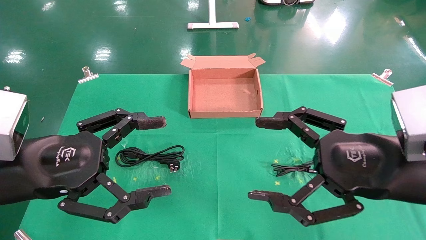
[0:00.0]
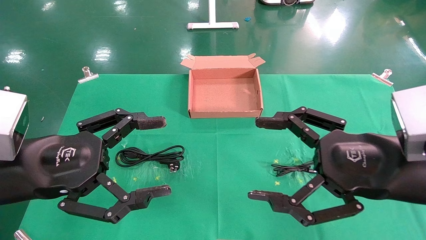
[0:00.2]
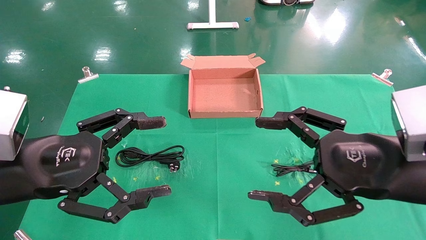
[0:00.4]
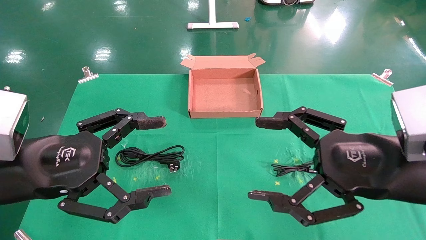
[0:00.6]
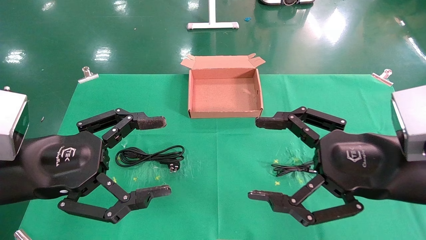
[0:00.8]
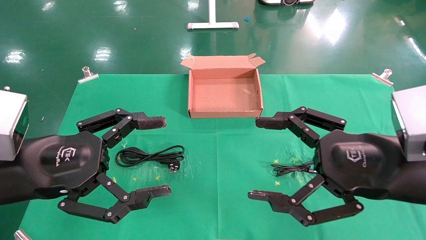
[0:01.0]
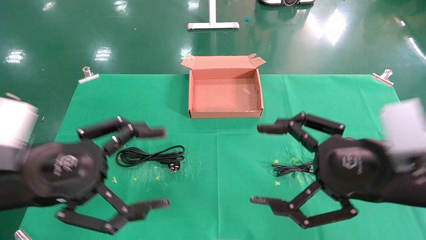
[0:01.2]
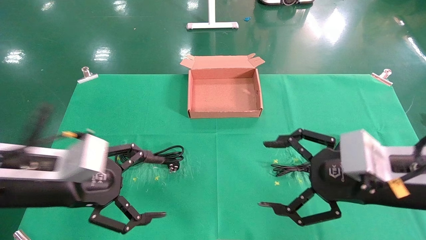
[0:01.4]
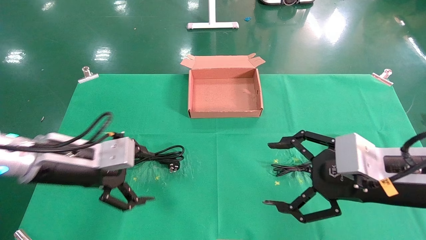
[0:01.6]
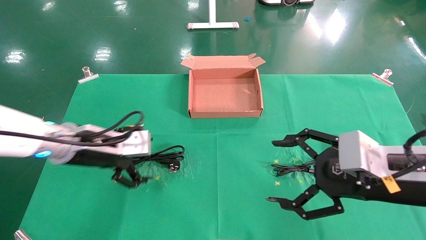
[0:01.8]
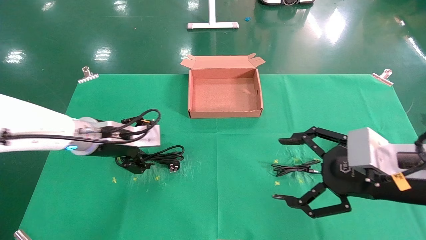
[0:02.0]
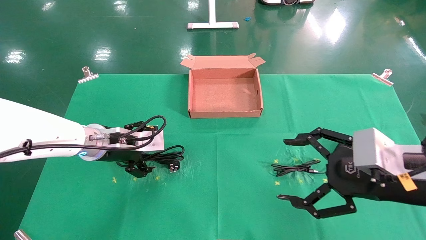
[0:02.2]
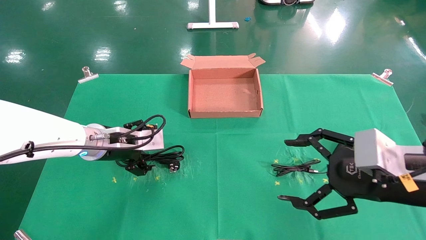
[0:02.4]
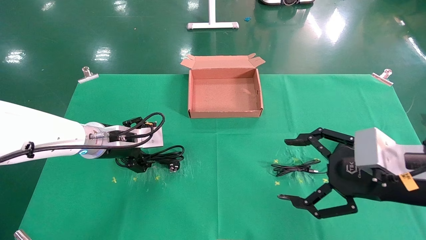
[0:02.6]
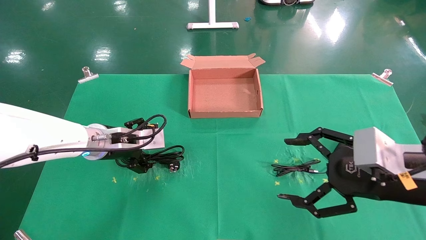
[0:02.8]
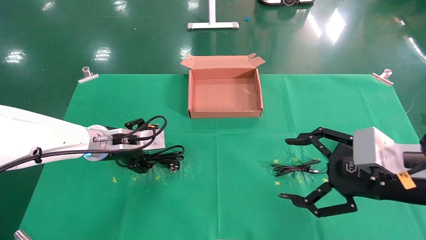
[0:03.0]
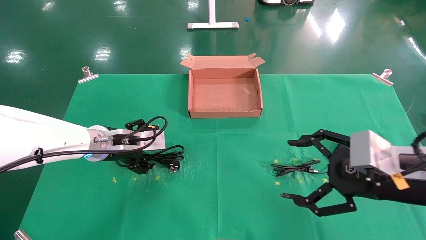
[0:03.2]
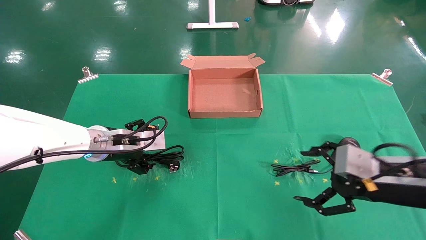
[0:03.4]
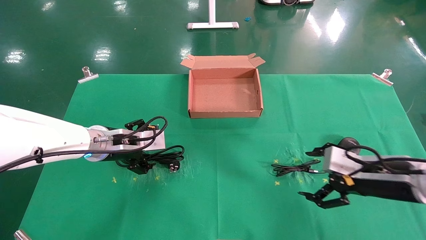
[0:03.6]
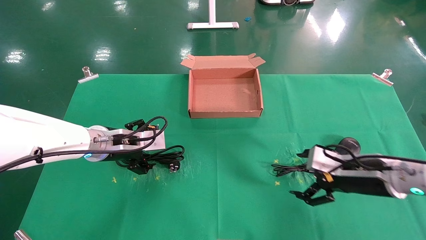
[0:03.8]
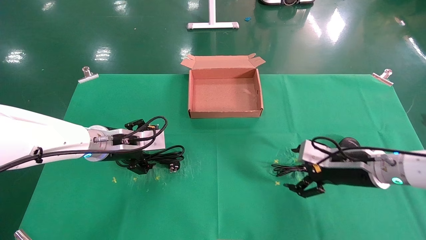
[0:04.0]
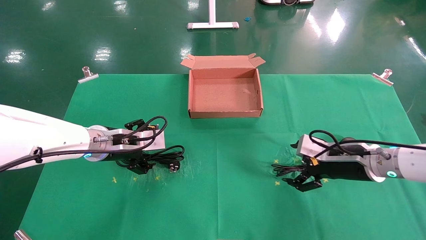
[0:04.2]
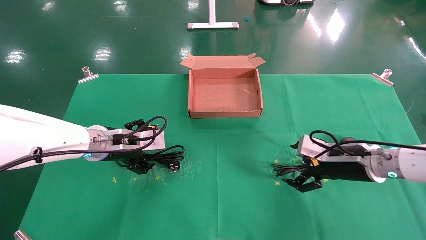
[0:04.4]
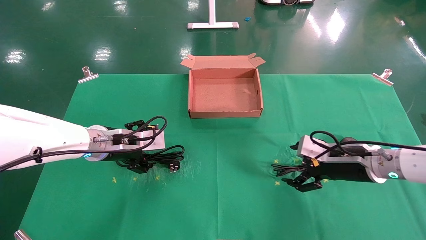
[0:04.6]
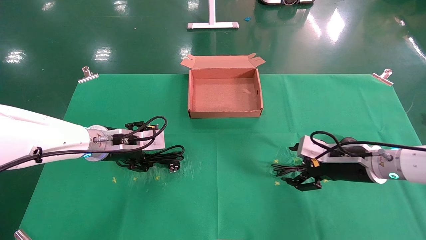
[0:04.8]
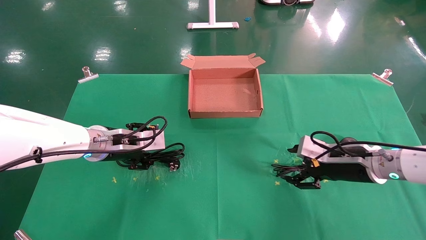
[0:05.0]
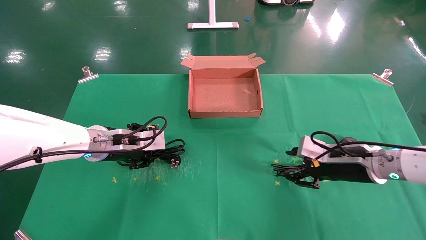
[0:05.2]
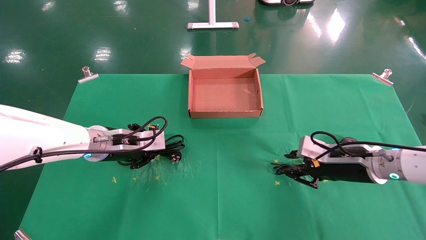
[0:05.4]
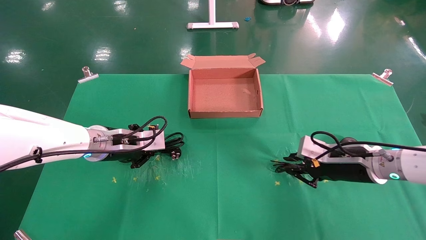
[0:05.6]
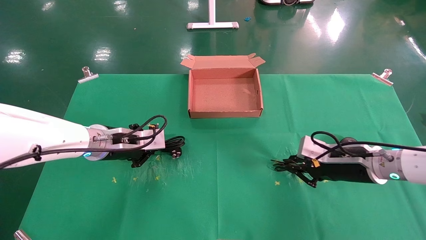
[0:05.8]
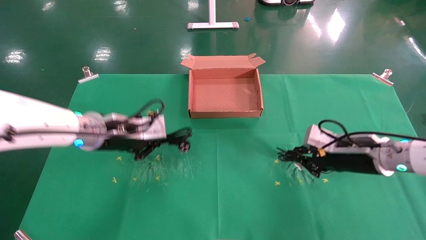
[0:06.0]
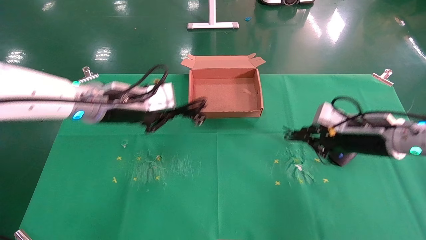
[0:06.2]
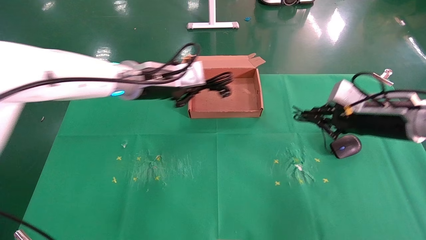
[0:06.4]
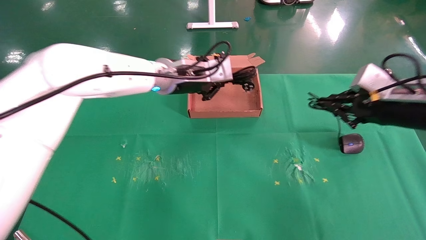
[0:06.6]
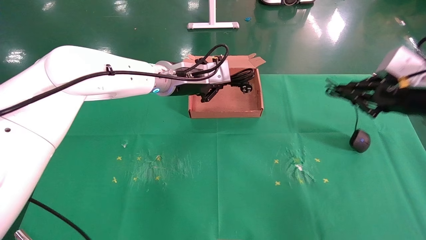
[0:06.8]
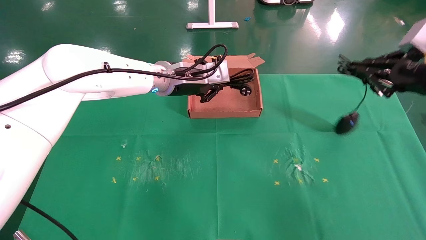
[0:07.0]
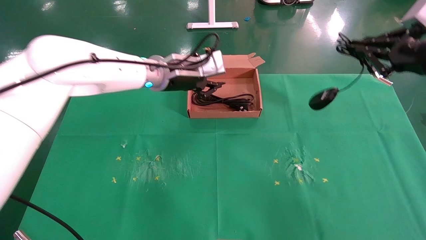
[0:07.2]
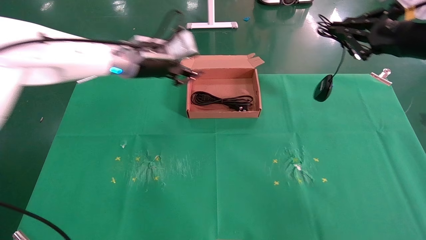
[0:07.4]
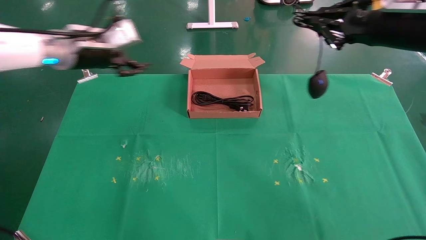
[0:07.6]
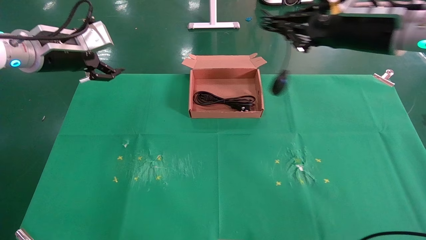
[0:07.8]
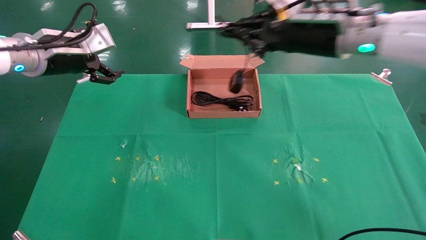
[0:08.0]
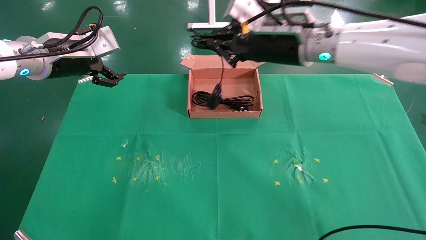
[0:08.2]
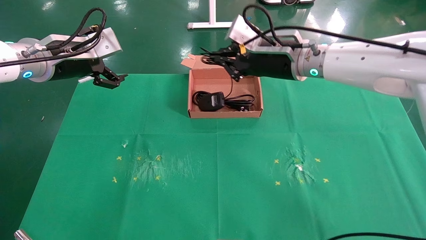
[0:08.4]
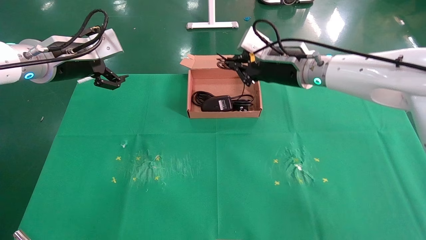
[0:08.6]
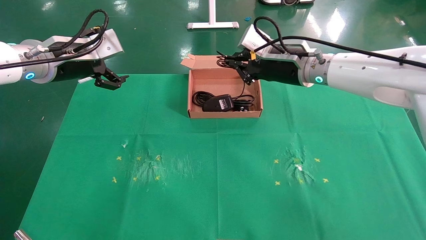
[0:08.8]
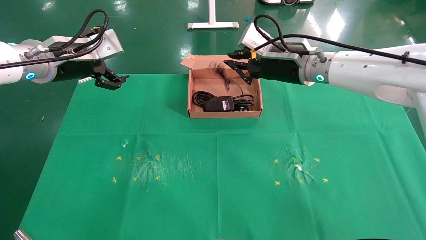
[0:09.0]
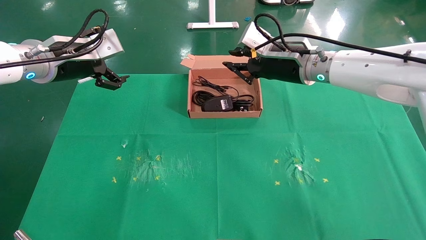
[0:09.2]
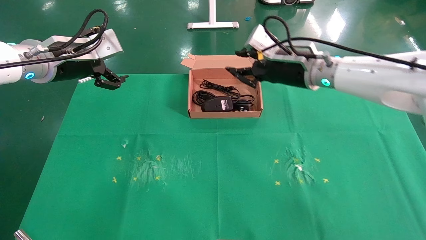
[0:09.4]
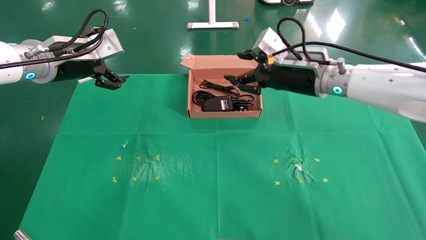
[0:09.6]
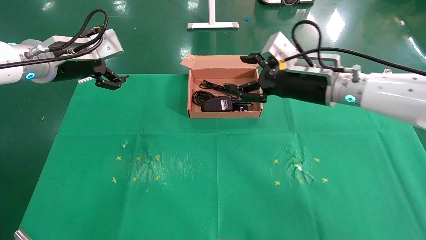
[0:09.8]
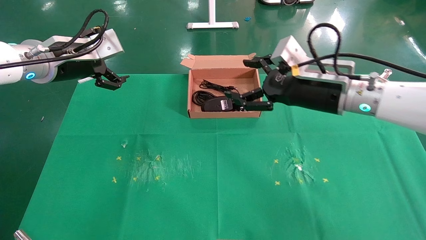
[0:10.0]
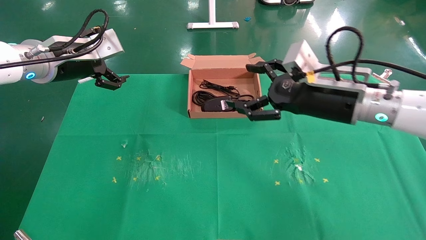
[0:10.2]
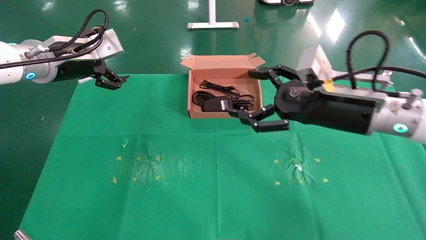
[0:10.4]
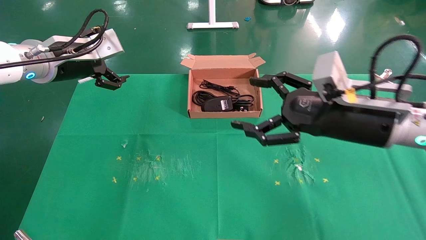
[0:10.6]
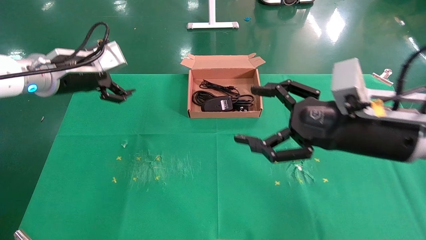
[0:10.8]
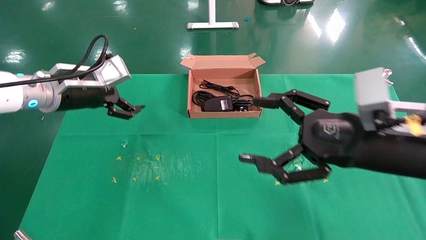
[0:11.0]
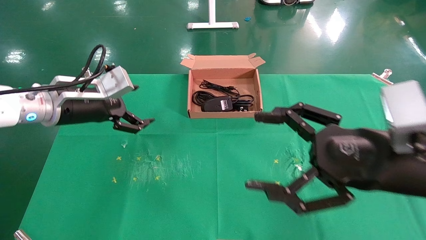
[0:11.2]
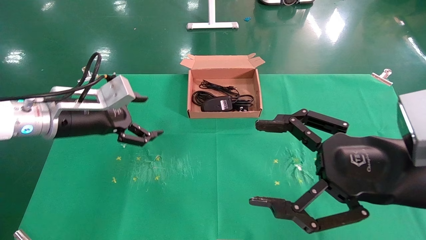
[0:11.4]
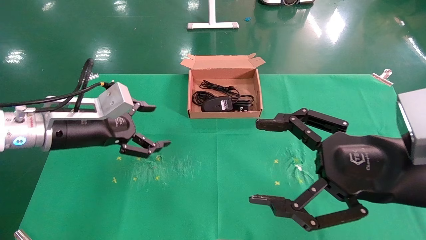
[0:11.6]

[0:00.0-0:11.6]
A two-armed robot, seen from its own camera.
Task of the whole recording: grasp data cable left put into box grasp mouse right put into box.
Step, 0:01.6 to 0:06.0: Simultaneously pick up the mouse and power cord from the accessory packaging area.
Step, 0:06.2 to 0:09.0: Place the mouse and power cord into the box.
0:00.0 to 0:01.4: The left gripper is displaced forward by about 5 cm.
0:01.4 to 0:02.8: The left gripper goes roughly 15 cm forward.
0:02.8 to 0:04.4: The right gripper shifts about 15 cm forward and downward.
0:04.4 to 0:05.8: The left gripper closes up; the right gripper closes.
0:05.8 to 0:07.2: The right gripper moves upward, about 20 cm, while the left gripper moves upward, to the right and forward, some 15 cm.
0:07.2 to 0:08.8: The left gripper heads to the left and backward, covering roughly 20 cm, and opens up. The right gripper travels to the left and forward by some 25 cm.
0:08.8 to 0:10.2: The right gripper moves backward and to the right, about 10 cm, and opens.
0:10.2 to 0:11.6: The left gripper moves downward and backward, roughly 10 cm; the right gripper moves backward, approximately 15 cm.

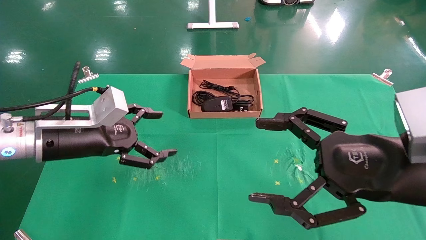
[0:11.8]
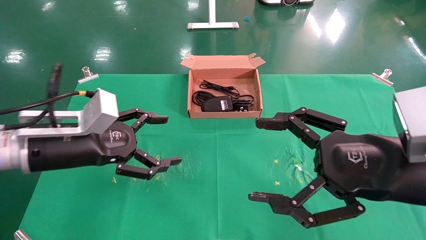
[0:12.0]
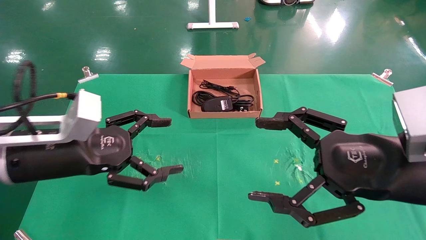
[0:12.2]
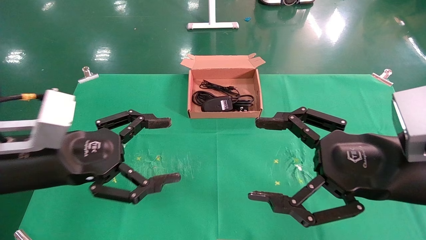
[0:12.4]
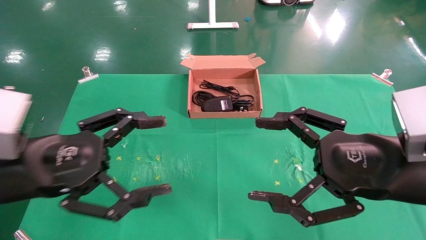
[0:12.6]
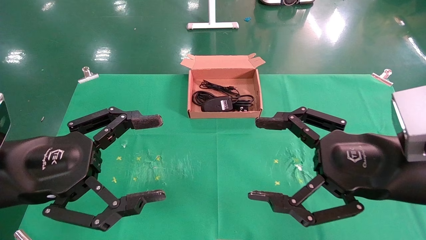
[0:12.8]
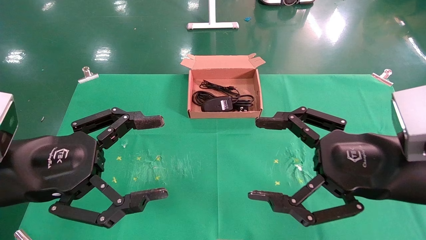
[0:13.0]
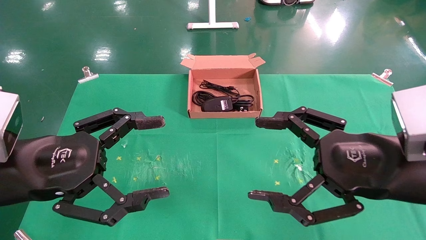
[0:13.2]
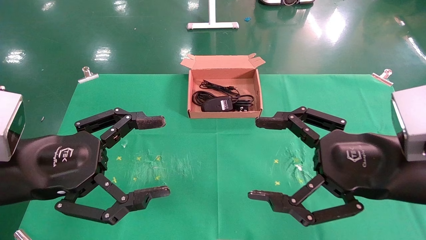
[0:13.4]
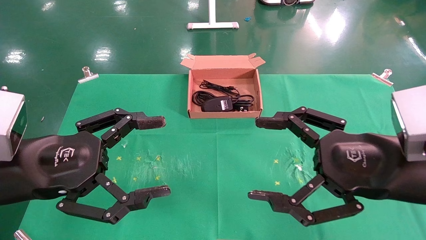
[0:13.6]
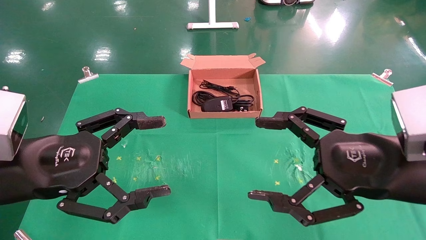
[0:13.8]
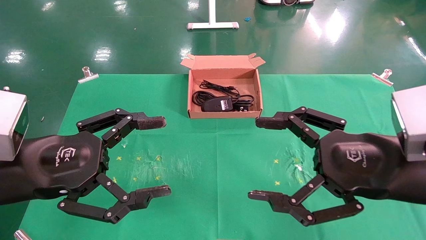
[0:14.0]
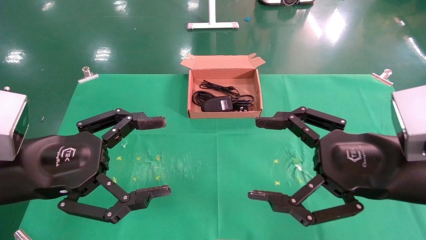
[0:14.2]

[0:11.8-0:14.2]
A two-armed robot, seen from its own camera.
Task of the whole recording: grasp data cable left put into box grasp mouse right put into box.
0:11.8 to 0:13.0: The left gripper goes about 10 cm backward.
0:13.0 to 0:14.2: The two grippers keep their place.
